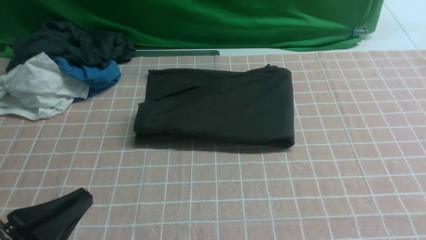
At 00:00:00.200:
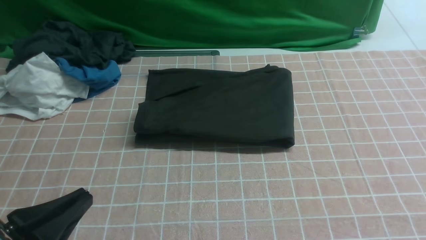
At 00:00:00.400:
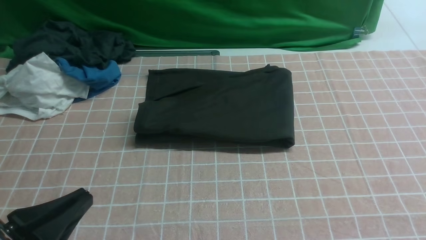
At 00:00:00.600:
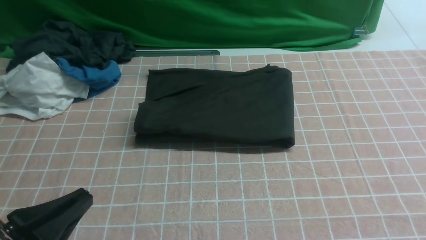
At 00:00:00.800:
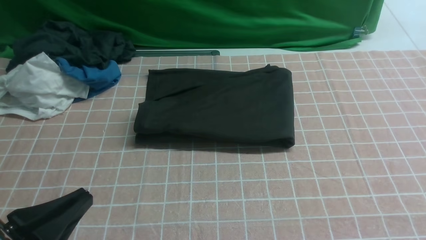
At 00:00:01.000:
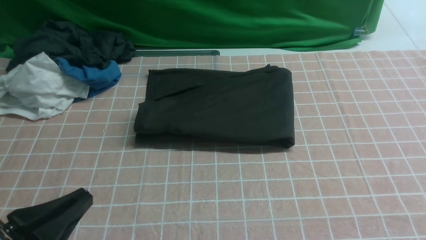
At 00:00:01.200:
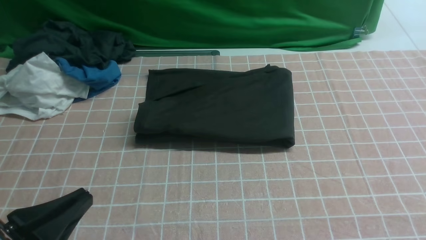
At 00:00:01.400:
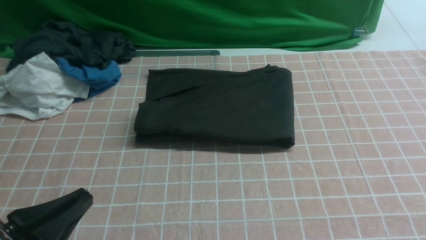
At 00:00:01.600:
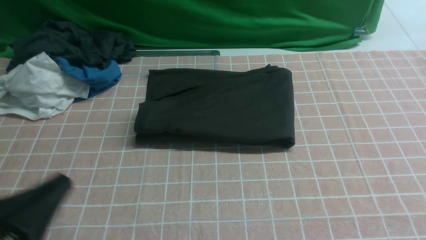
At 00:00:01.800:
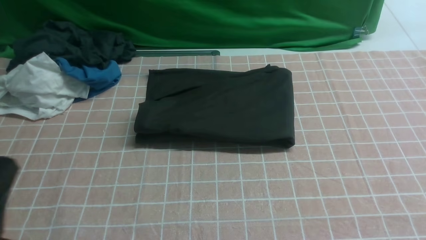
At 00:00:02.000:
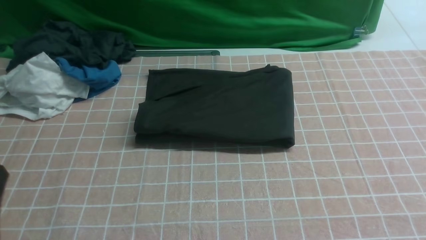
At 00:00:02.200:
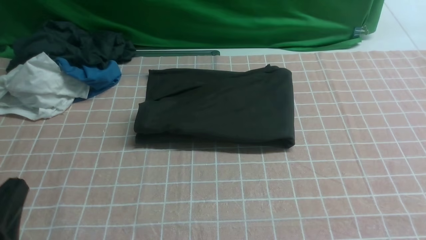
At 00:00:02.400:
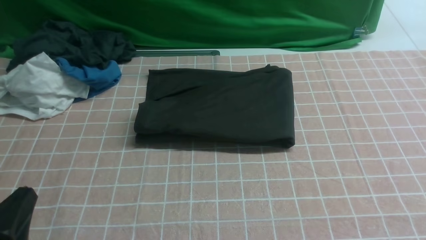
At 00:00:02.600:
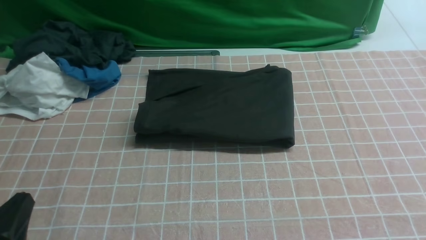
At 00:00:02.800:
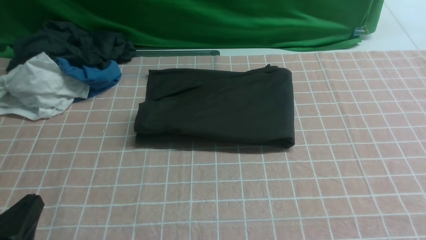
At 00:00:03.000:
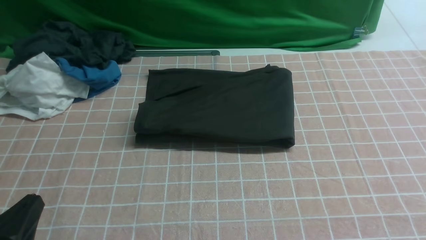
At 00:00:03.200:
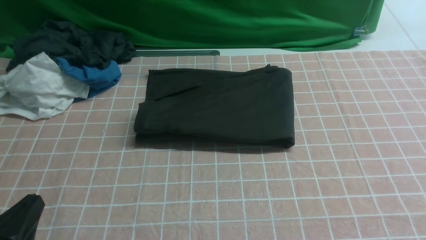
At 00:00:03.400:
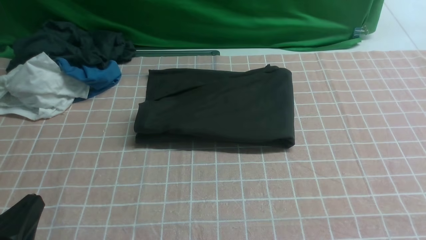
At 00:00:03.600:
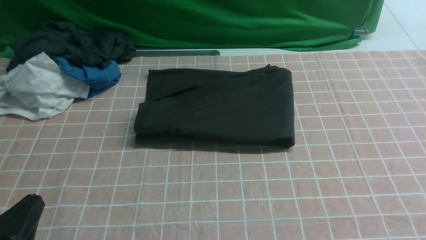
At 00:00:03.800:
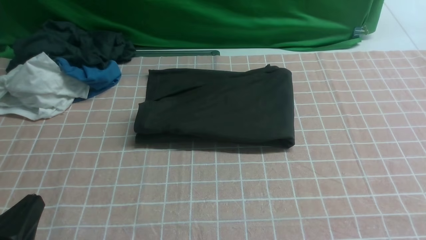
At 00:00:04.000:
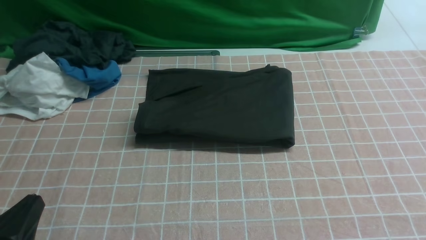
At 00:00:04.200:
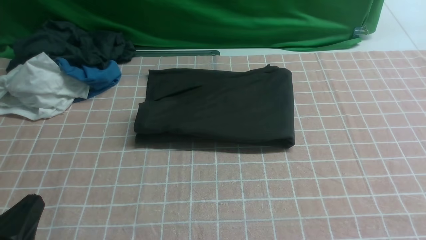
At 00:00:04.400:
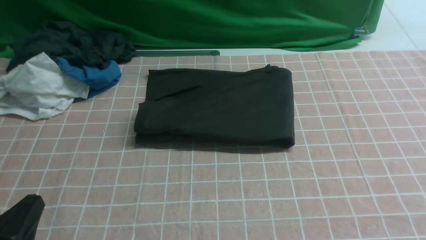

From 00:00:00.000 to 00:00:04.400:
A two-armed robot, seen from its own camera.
From 00:00:01.400 to 00:00:03.000: The left gripper moves about 5 cm.
From 00:00:03.000 to 00:00:04.400: Neither gripper changes place.

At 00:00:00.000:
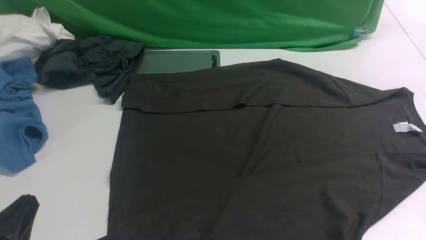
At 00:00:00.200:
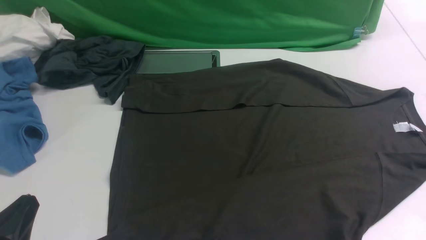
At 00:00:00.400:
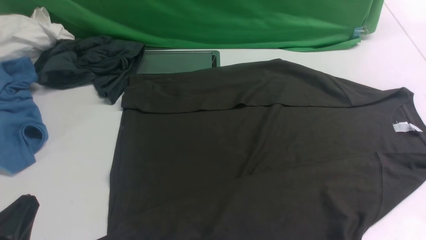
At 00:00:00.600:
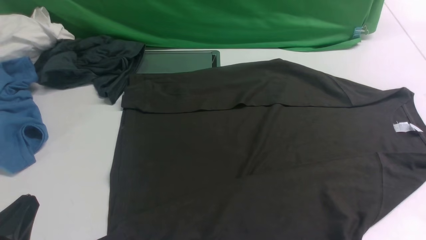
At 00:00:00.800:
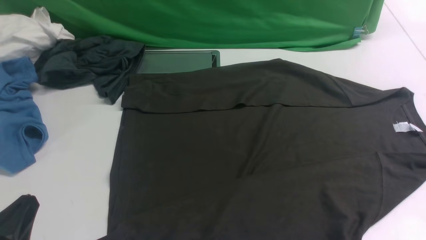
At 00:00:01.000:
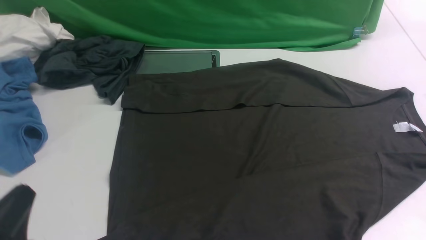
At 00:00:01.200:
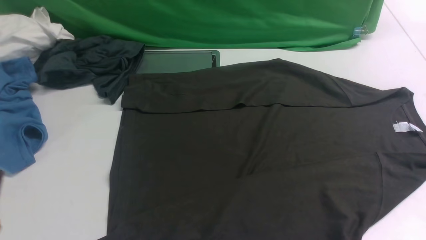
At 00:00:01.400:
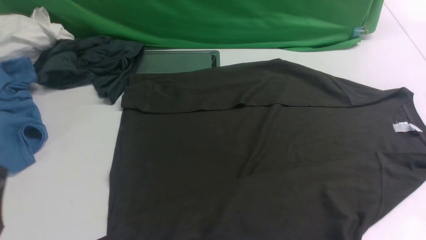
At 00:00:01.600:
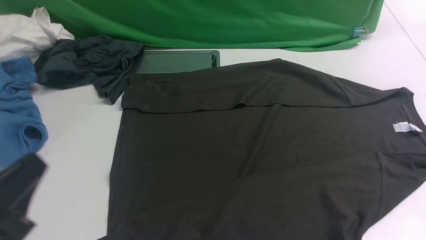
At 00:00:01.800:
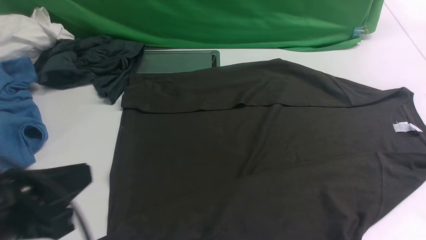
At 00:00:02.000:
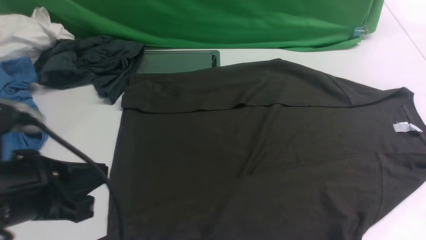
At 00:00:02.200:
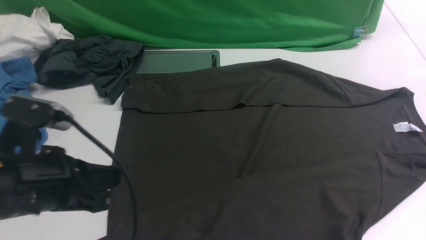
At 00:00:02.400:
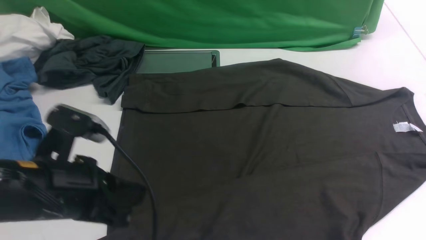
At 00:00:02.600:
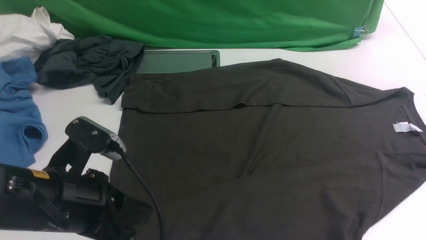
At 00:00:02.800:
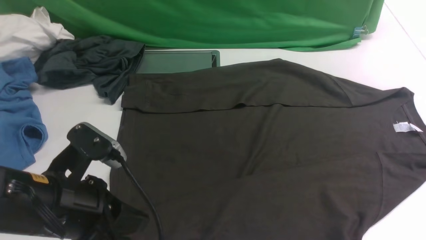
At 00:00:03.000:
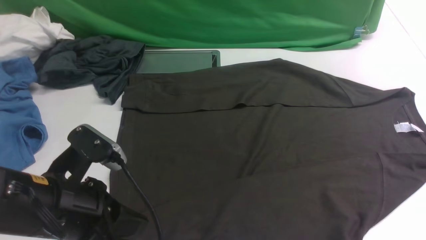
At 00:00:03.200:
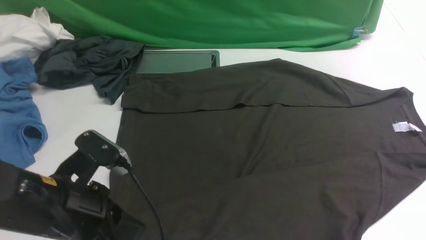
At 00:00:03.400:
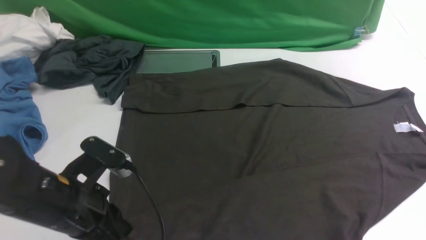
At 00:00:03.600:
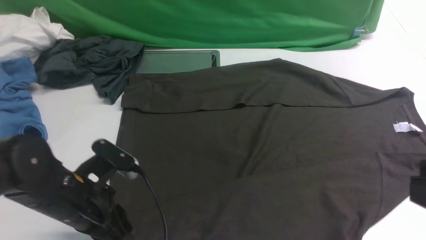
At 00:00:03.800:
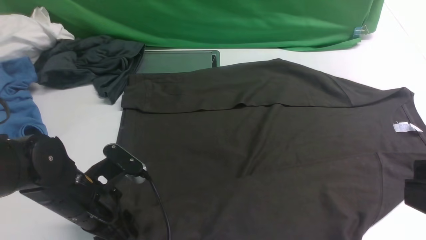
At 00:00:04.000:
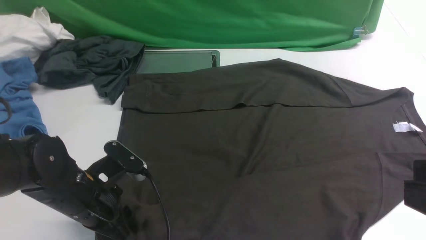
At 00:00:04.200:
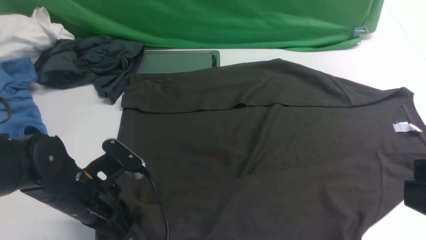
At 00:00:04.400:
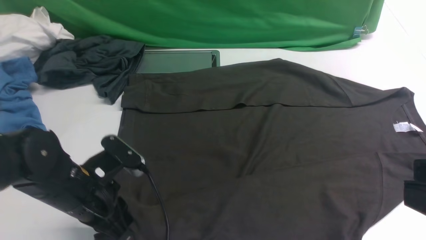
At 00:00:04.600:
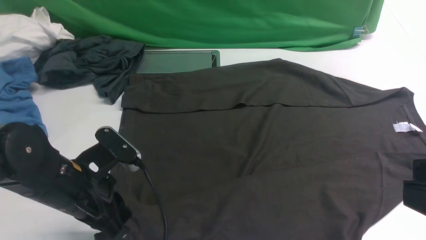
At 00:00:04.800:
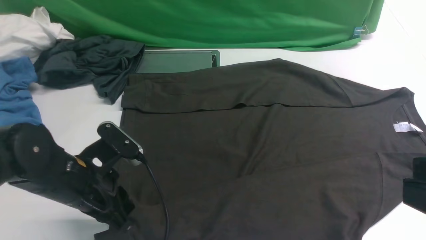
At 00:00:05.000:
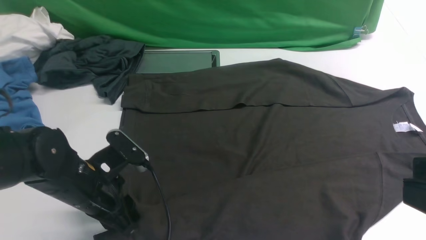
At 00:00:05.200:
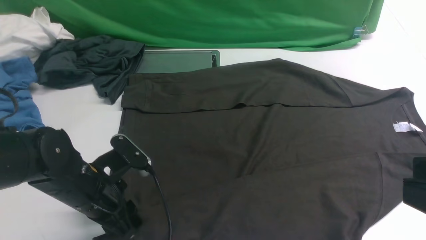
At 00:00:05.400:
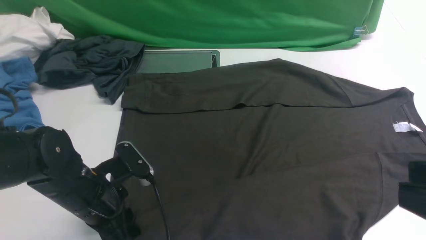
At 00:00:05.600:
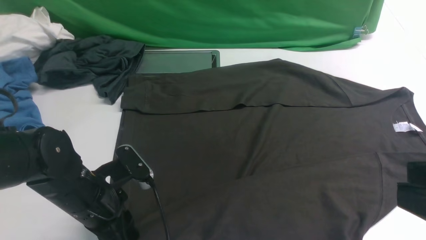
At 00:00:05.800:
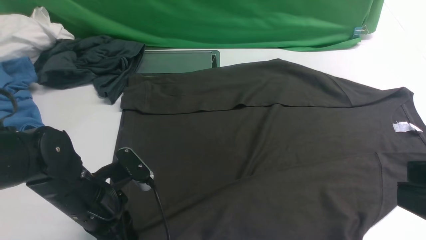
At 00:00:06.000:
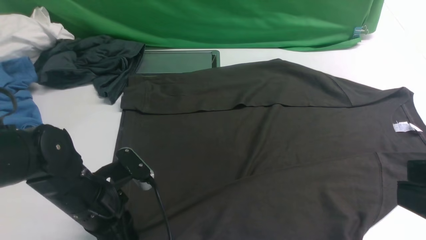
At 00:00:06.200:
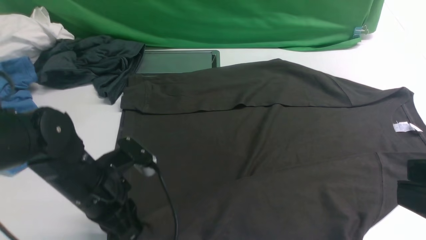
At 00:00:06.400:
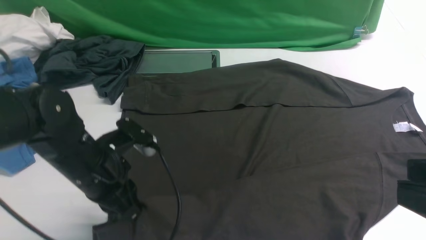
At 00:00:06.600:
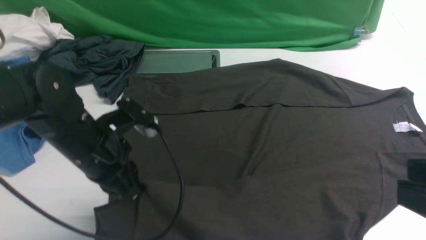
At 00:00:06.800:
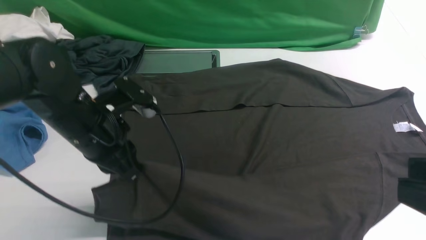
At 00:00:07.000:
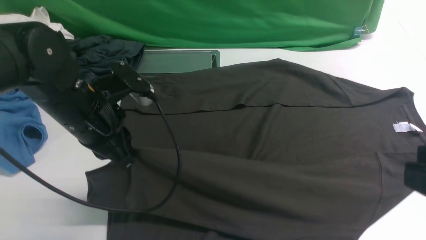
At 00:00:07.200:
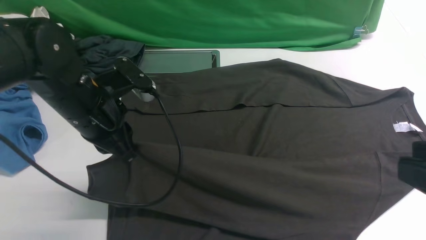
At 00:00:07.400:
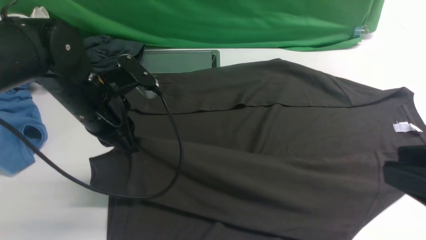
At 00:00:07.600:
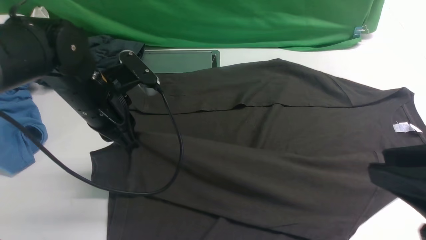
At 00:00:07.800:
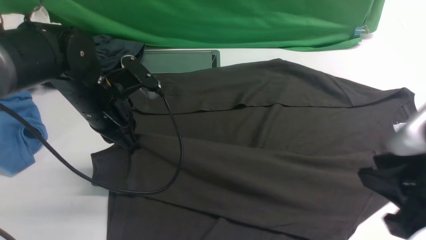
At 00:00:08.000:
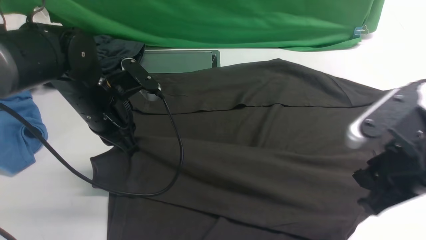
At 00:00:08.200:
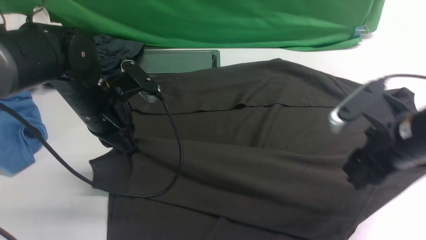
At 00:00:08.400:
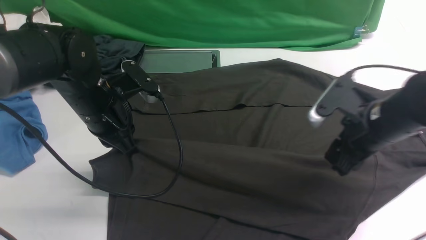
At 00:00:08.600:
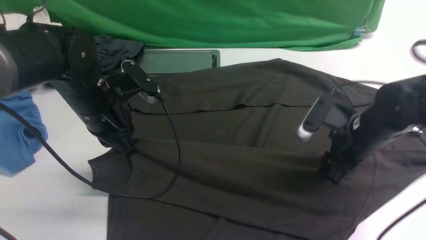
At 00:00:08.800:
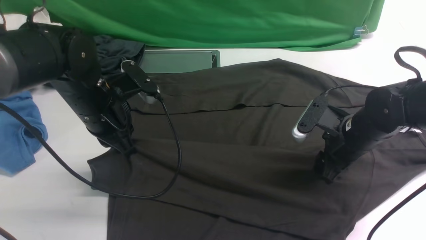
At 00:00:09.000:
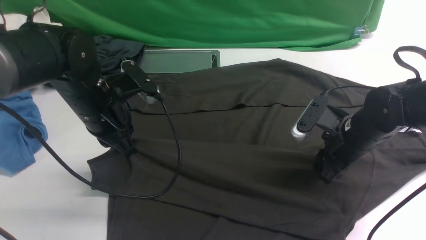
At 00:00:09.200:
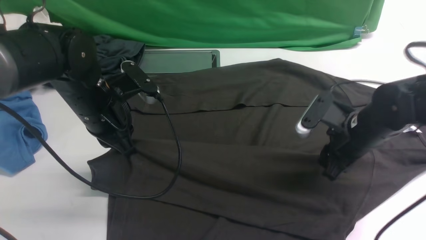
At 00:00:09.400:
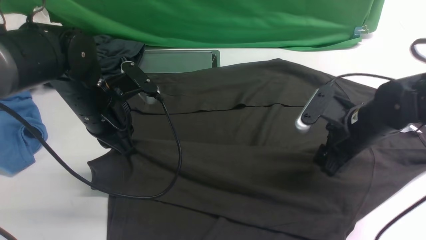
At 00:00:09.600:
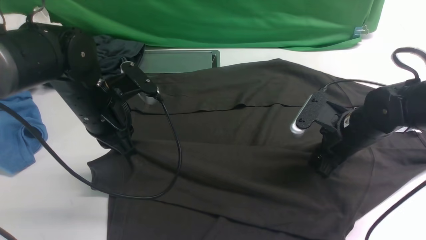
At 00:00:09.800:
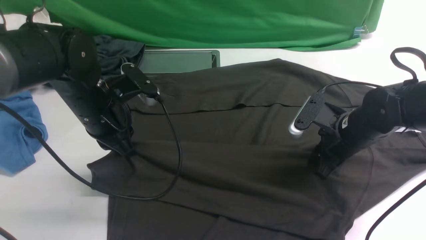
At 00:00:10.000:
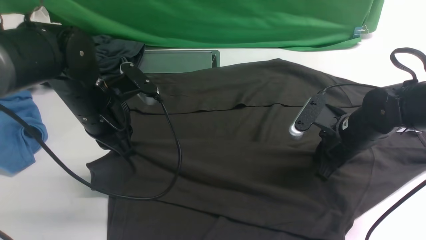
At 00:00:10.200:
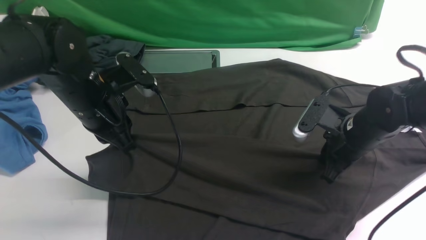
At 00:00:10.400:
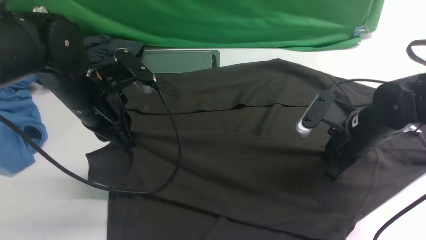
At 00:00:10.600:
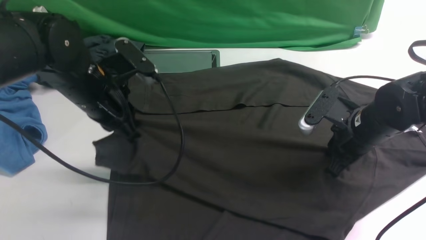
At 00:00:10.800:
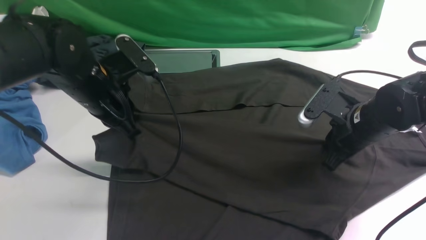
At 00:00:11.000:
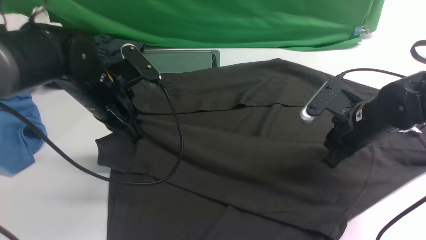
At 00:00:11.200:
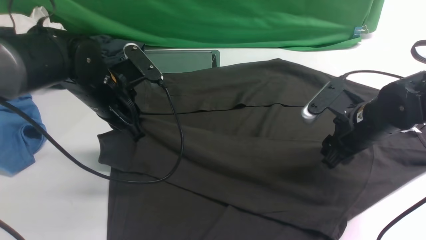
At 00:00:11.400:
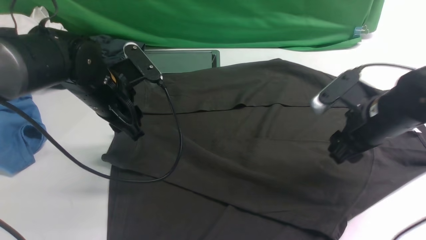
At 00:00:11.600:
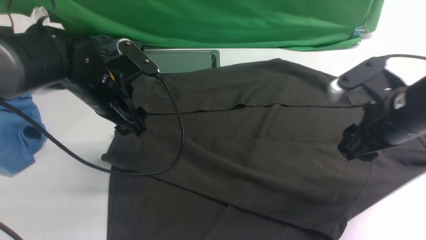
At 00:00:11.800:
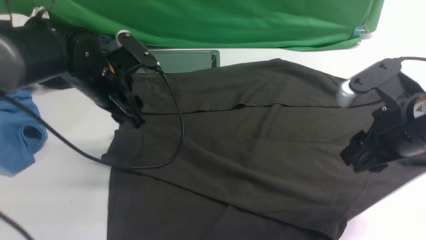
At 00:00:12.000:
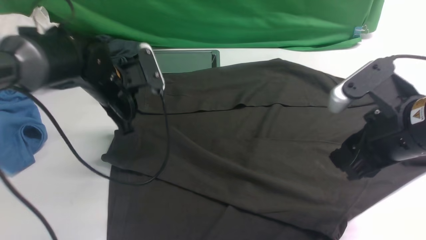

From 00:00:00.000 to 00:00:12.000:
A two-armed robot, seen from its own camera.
Step, from 00:00:00.000 to 00:00:06.400: use the left arm to clamp the cuff closest to it.
Step, from 00:00:06.600 to 00:00:11.400: use the left arm to drag and place the cuff at the centered position on the left edge of the fabric.
From 00:00:00.000 to 00:00:01.600: The left gripper is displaced upward by about 10 cm.
From 00:00:01.600 to 00:00:03.000: The right gripper is displaced upward by roughly 5 cm. The left gripper heads forward and to the right, covering some 10 cm.
From 00:00:03.000 to 00:00:04.400: The right gripper moves upward and to the left, about 15 cm. The left gripper is displaced downward and forward by approximately 10 cm, and opens and closes again.
From 00:00:04.400 to 00:00:06.000: The left gripper opens, then closes once more.
From 00:00:06.000 to 00:00:07.600: The right gripper moves approximately 5 cm, while the left gripper heads forward and upward, covering approximately 15 cm.
From 00:00:07.600 to 00:00:09.000: The right gripper travels forward and downward by about 25 cm.
From 00:00:09.000 to 00:00:10.400: The right gripper closes.
From 00:00:10.400 to 00:00:12.000: The left gripper is displaced forward and downward by approximately 10 cm, and opens. Meanwhile the right gripper travels upward and backward by roughly 15 cm, and opens.
